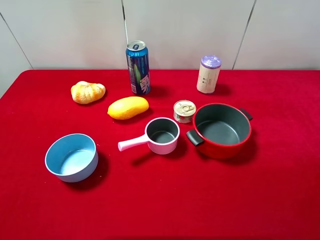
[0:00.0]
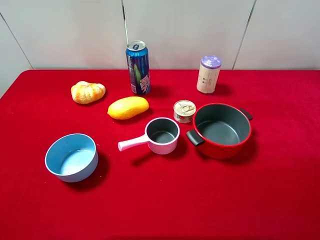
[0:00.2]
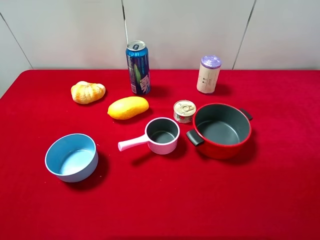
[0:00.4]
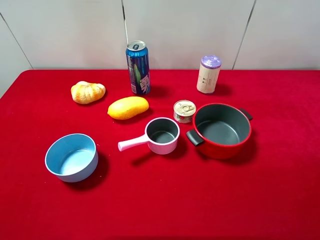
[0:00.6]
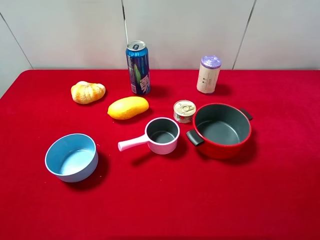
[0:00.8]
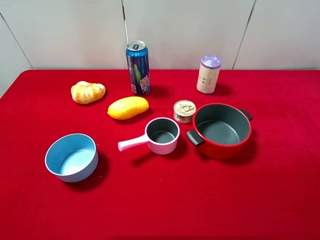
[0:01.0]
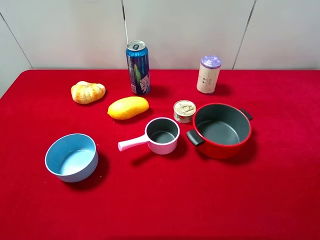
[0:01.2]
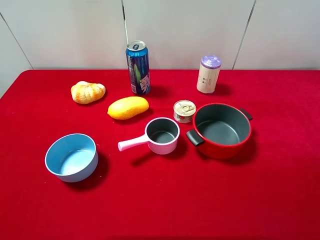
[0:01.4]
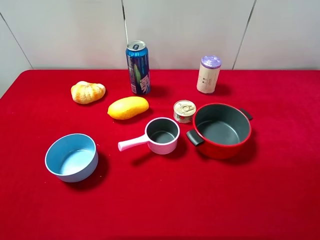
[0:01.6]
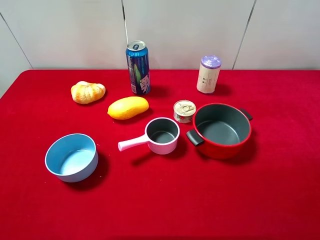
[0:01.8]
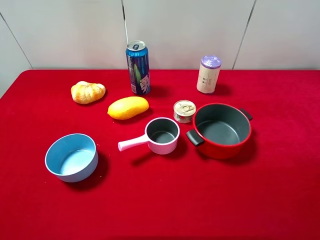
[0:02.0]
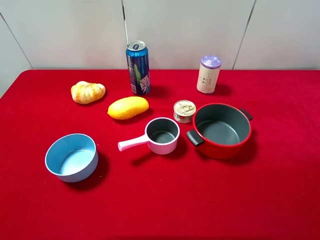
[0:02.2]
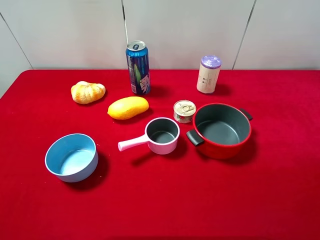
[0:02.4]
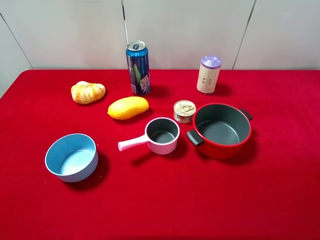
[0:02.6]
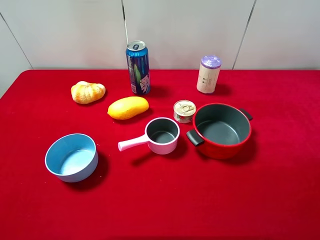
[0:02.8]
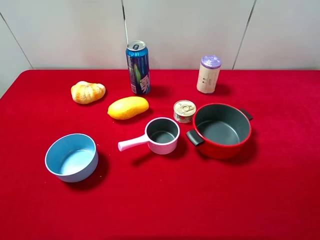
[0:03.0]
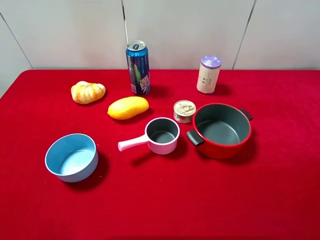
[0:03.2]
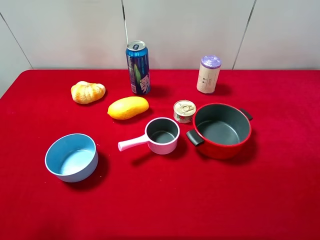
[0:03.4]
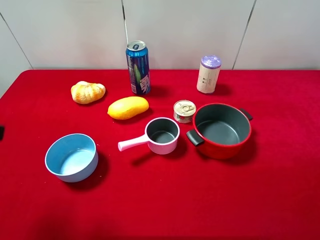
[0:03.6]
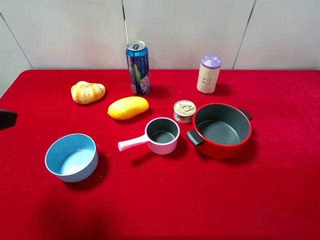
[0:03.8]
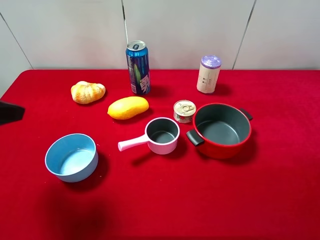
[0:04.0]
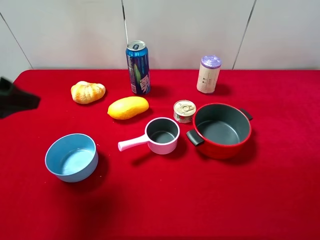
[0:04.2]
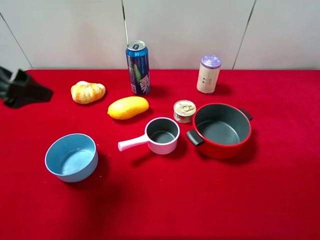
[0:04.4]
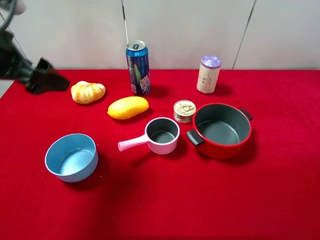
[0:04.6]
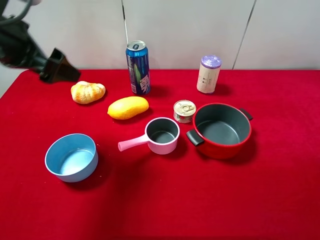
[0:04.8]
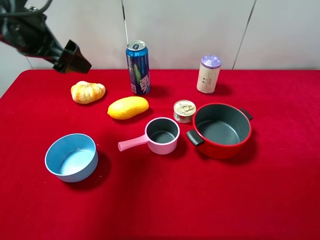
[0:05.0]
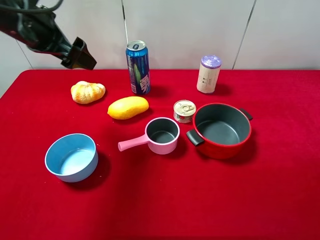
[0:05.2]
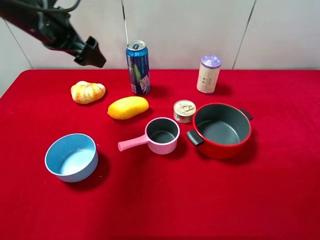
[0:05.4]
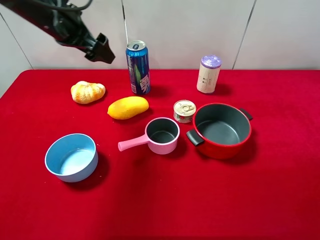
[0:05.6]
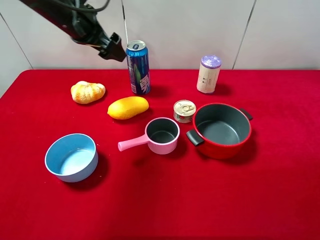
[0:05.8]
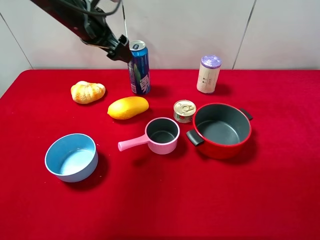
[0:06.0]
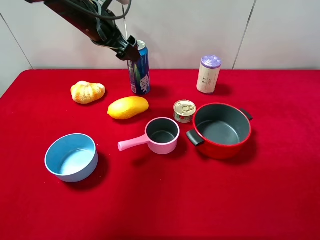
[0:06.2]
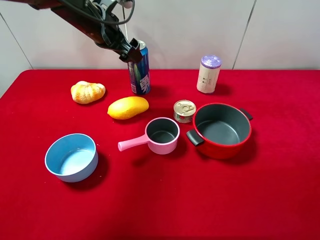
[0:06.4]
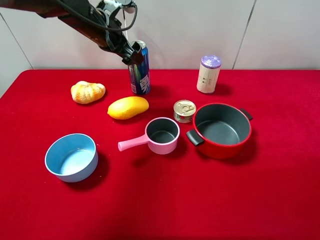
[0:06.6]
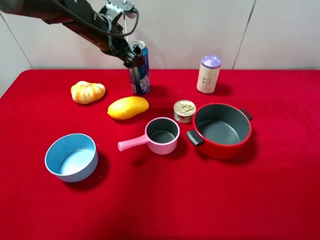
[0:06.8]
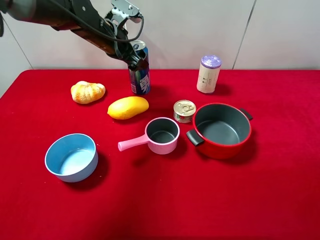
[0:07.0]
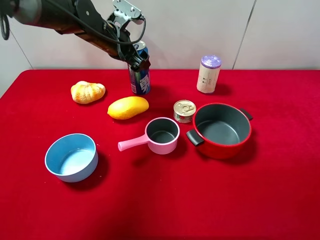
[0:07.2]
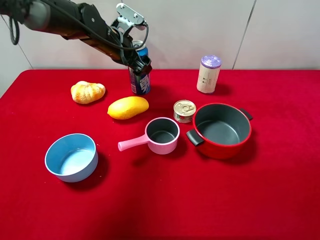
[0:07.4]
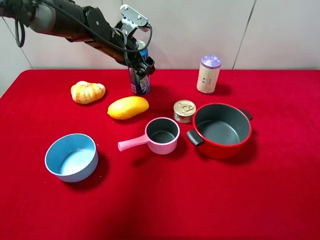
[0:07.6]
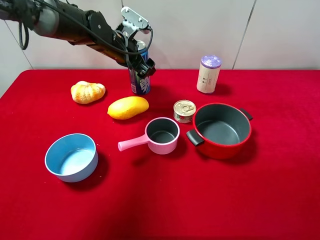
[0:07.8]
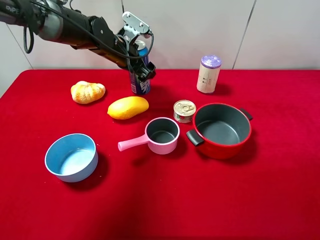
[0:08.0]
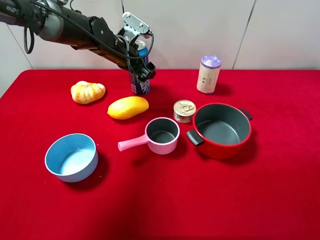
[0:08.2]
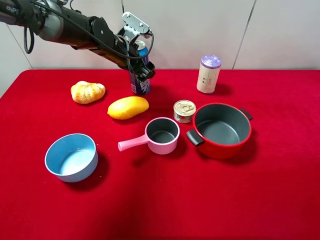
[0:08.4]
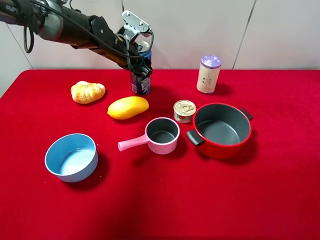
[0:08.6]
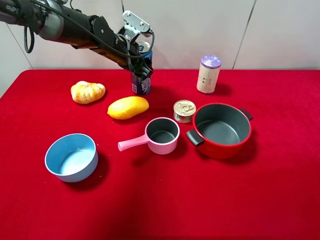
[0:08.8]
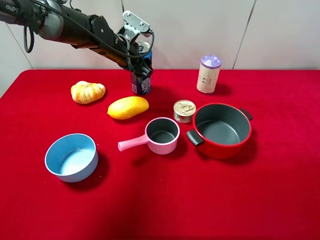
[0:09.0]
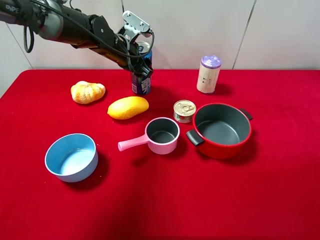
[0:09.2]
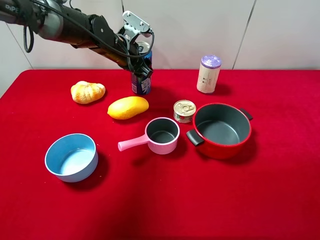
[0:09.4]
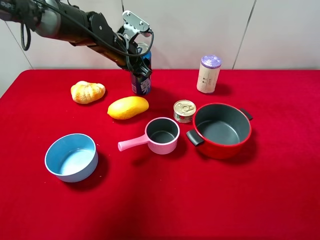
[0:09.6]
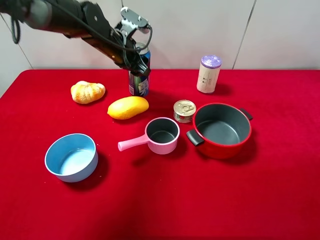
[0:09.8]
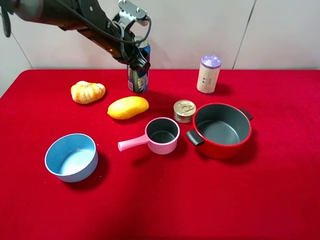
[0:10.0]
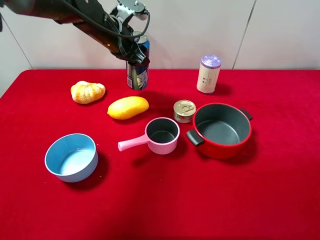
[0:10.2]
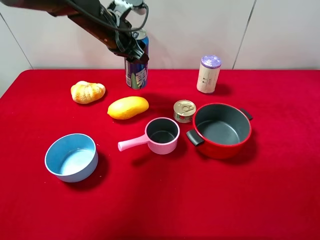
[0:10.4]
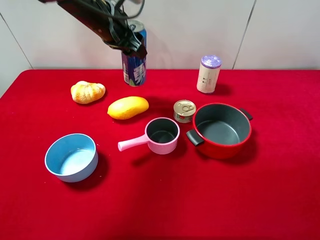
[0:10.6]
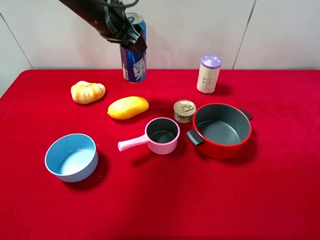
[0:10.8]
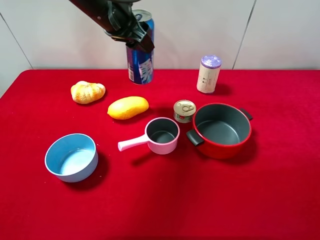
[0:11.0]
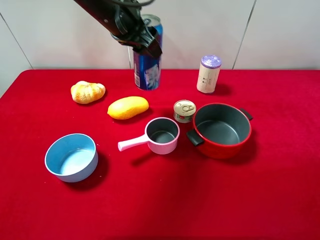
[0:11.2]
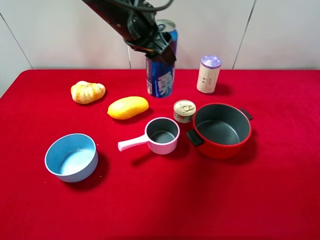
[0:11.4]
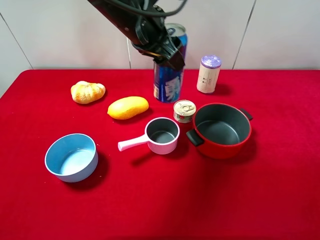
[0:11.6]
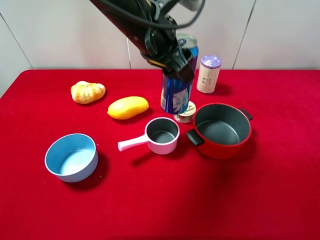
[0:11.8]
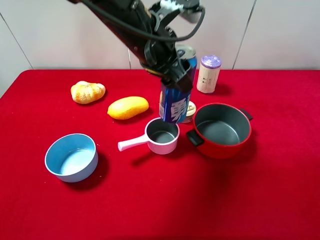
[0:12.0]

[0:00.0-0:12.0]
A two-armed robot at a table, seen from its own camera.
Task of the whole recording: pick up an item with a gripper and place it in a random container on the desktop.
0.0 to 3.0 s: Both grippers stay put.
3.0 to 4.4 s: The left gripper travels forward by approximately 20 cm.
4.4 to 6.0 s: The left gripper shifts approximately 20 cm forward and to the right.
6.0 to 7.6 s: The left gripper heads downward, covering some 10 cm.
7.6 to 9.0 s: The left gripper closes its fingers.
9.0 to 10.4 s: The left gripper shifts about 5 cm upward.
10.4 to 12.0 s: The left gripper heads backward and to the right, covering some 15 cm.

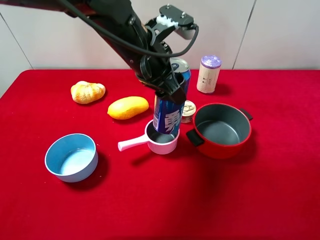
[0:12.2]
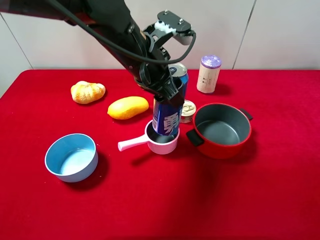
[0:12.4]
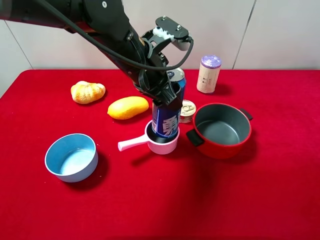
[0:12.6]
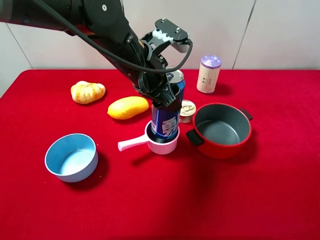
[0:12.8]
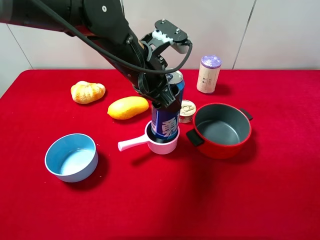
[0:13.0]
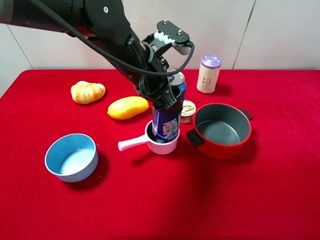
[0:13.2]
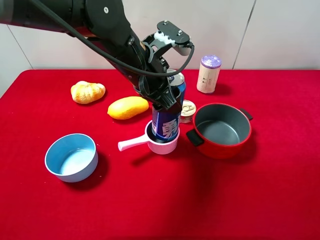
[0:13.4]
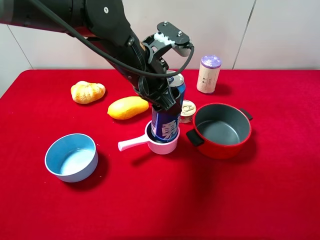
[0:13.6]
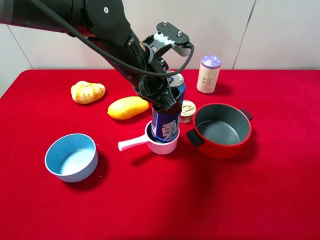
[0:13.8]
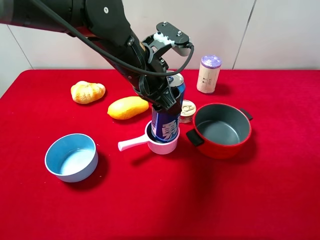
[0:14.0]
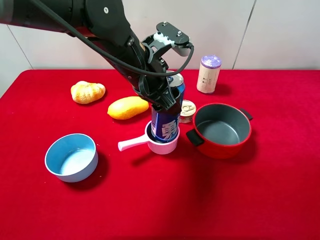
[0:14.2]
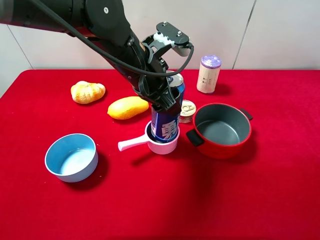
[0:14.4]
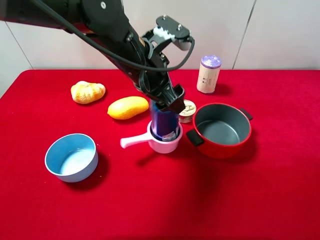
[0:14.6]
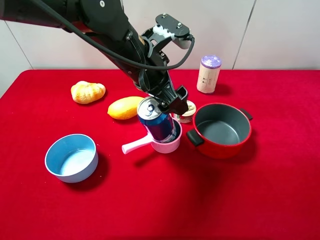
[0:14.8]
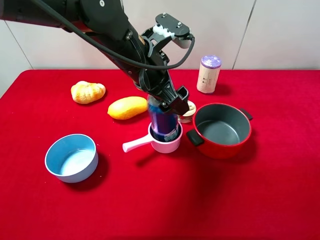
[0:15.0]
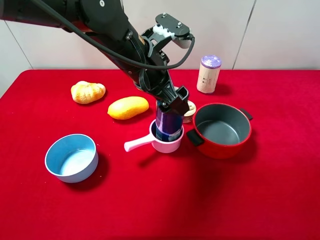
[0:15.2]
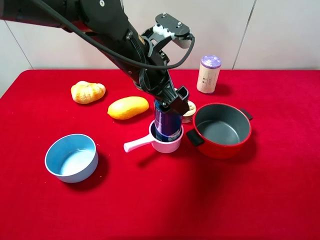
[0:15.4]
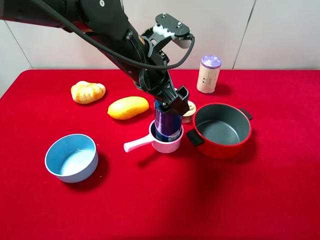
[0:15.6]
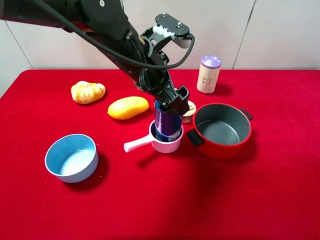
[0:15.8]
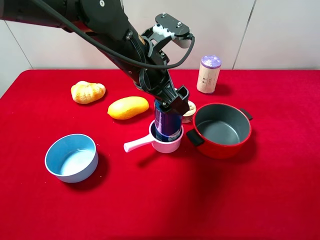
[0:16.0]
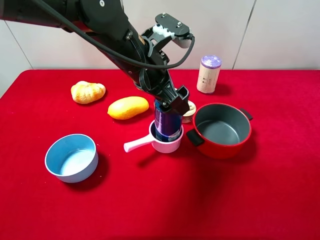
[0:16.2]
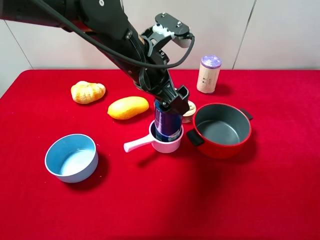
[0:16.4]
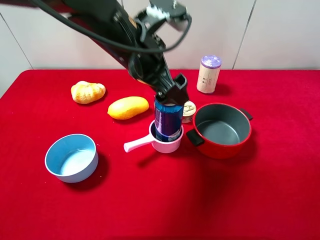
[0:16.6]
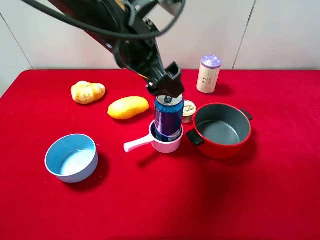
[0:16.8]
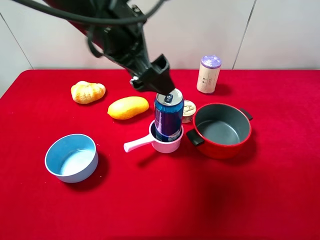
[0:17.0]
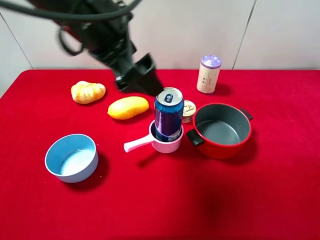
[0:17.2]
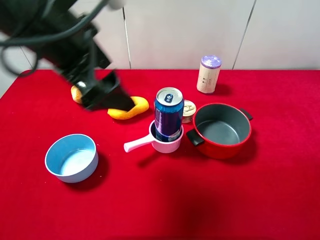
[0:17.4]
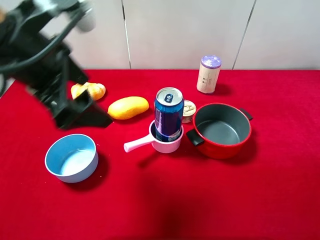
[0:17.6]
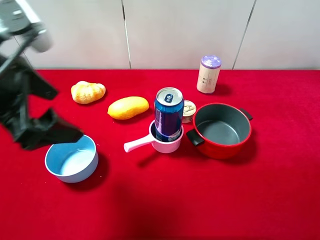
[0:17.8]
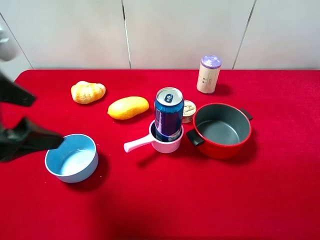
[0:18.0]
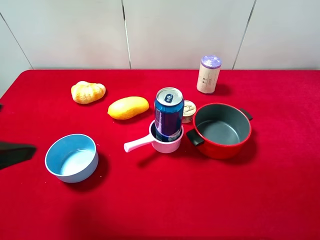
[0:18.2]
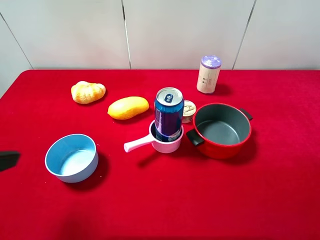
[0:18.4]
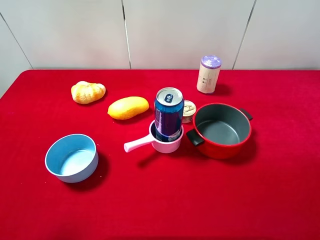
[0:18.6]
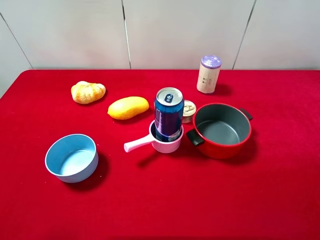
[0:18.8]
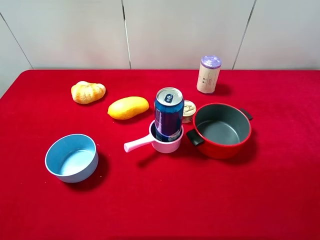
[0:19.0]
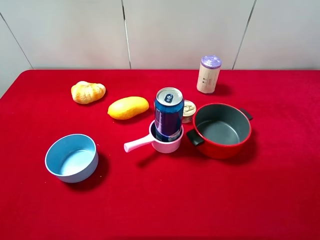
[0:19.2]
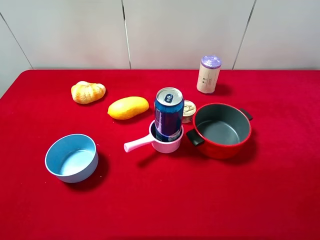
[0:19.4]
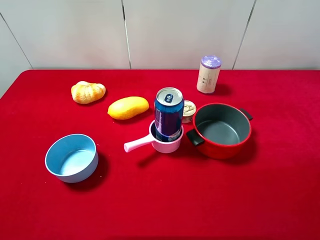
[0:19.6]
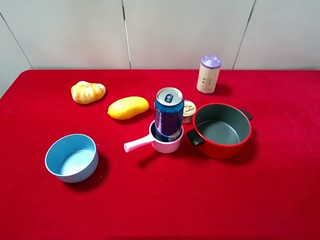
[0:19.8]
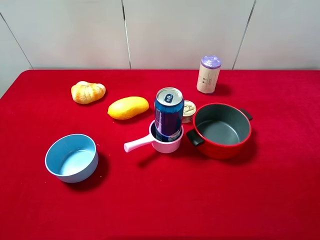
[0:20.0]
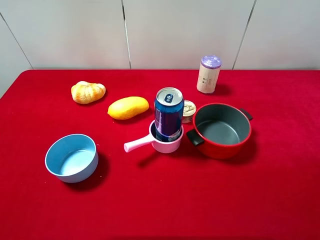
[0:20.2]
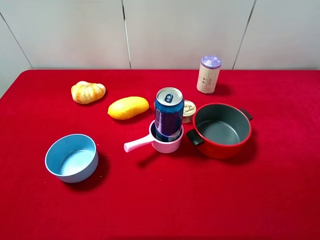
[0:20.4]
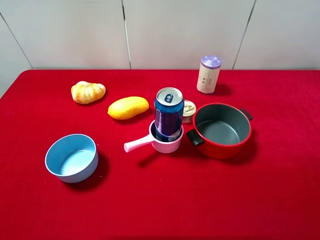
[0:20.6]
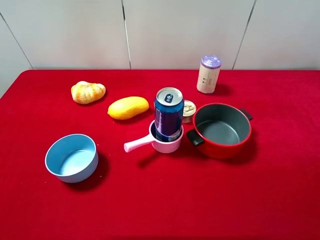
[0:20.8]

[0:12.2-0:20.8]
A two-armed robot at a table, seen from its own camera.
Task of the whole recording: pick up an item with a gripper and place it in a random container on the desktop.
12.2 to 13.6 s: The grippers make only small movements.
13.6 to 15.0 s: The left gripper opens up.
15.0 to 16.6 s: There are only small adjustments of the grippers.
16.6 to 18.0 s: The left gripper moves to the left and backward, some 20 cm.
18.0 to 19.4 s: The left gripper is displaced backward and to the left by some 15 cm.

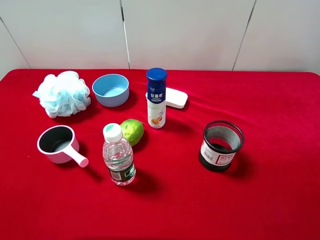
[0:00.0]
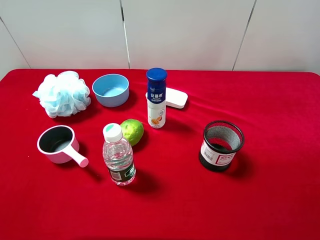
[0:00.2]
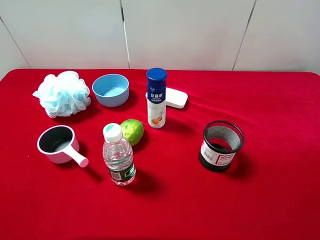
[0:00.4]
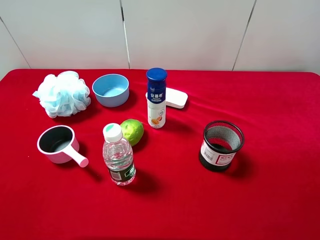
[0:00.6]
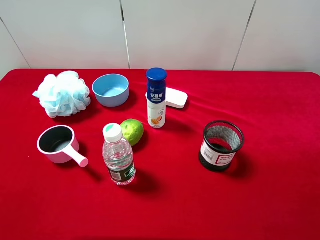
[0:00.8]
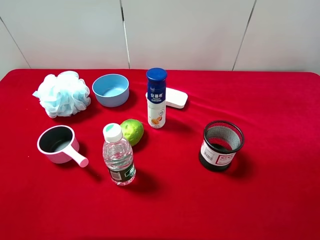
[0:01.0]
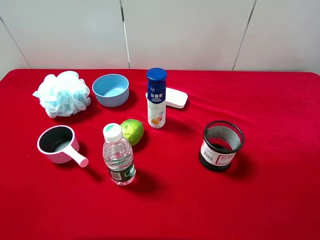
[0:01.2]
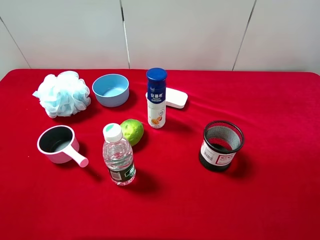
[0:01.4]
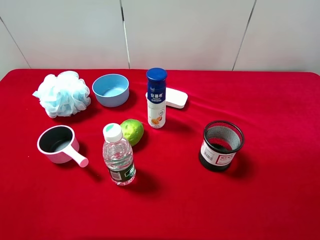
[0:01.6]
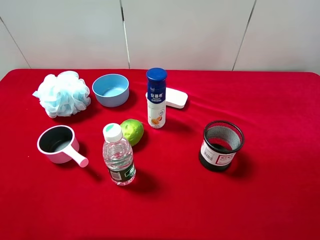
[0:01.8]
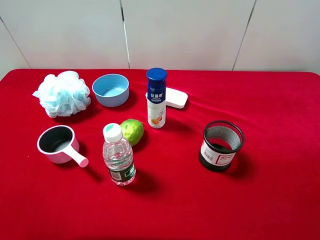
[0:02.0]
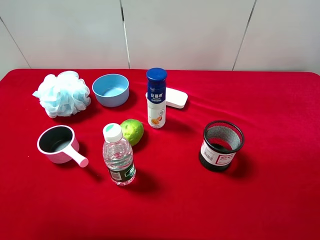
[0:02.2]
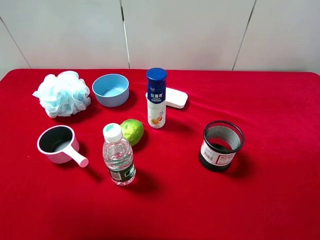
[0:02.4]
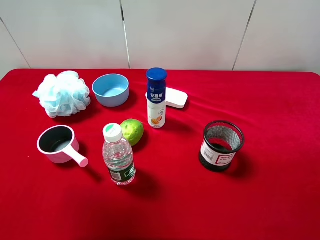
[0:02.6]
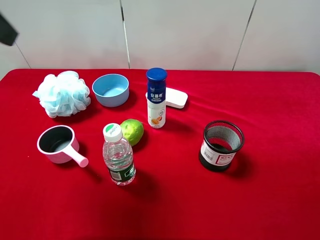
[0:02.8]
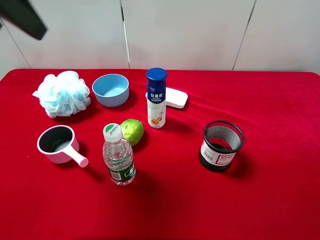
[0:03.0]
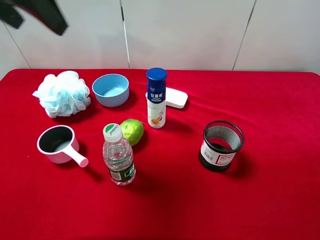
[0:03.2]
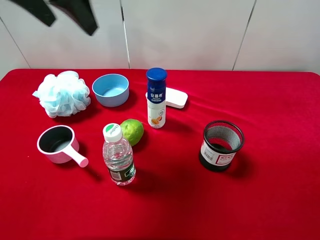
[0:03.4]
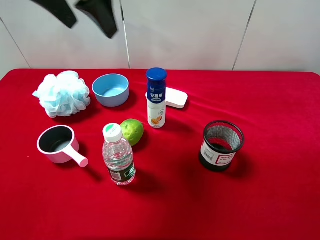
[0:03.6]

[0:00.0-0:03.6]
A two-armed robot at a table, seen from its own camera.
Task of the whole recording: pick up an item with a gripper and place it in a random container on the desktop.
1.8 to 3.6 s: The left gripper goes about 30 cm forward and to the right.
